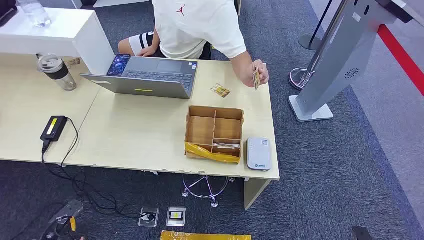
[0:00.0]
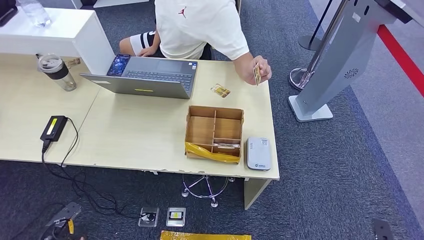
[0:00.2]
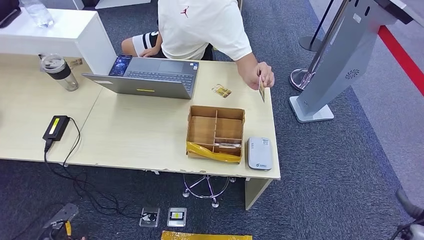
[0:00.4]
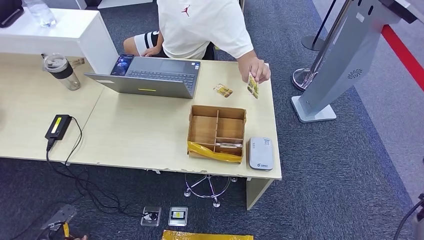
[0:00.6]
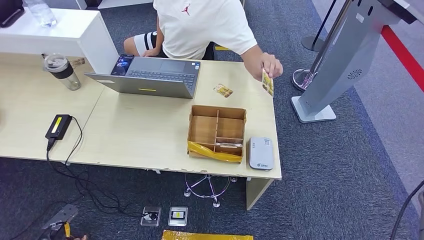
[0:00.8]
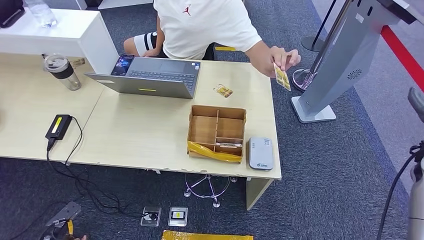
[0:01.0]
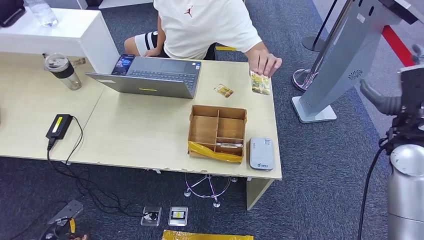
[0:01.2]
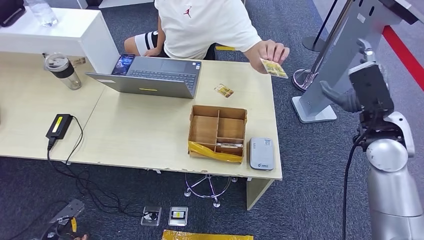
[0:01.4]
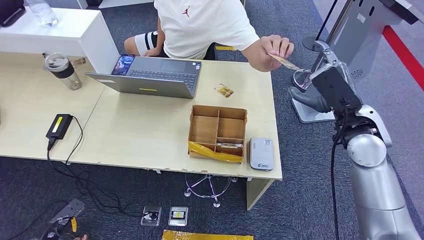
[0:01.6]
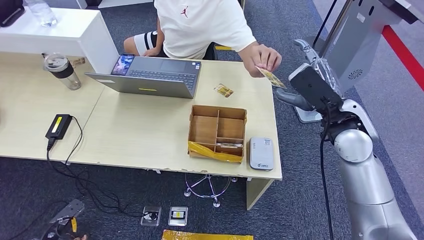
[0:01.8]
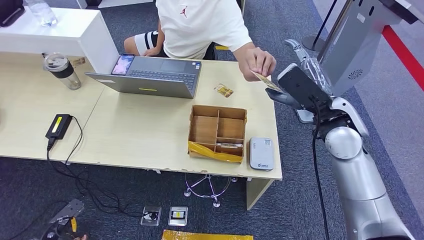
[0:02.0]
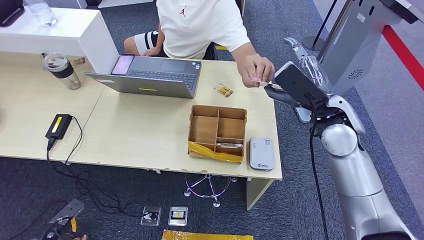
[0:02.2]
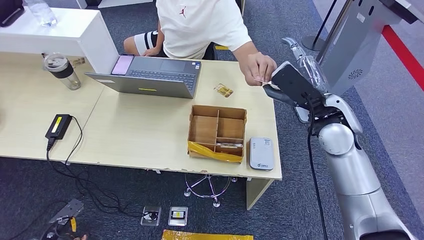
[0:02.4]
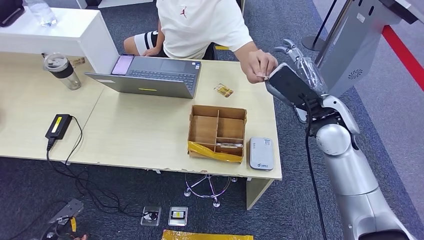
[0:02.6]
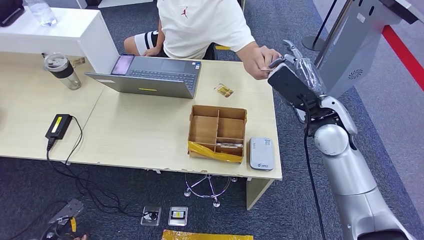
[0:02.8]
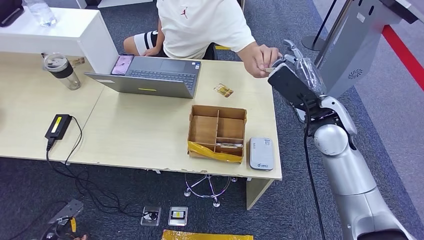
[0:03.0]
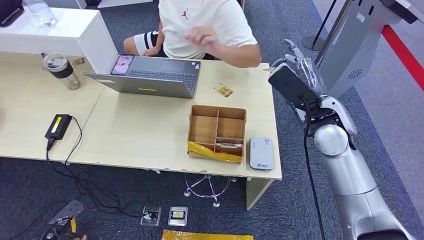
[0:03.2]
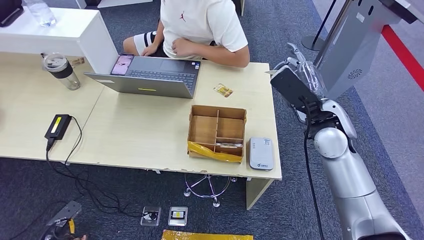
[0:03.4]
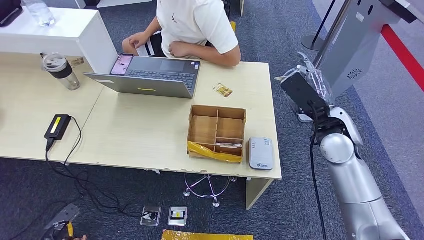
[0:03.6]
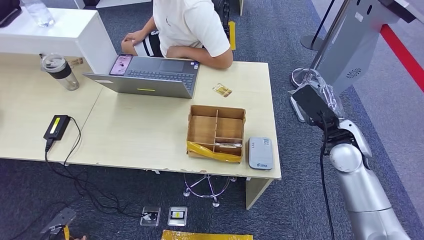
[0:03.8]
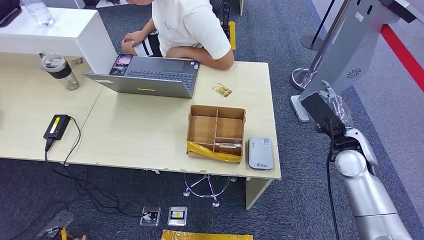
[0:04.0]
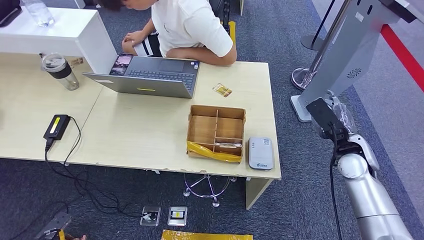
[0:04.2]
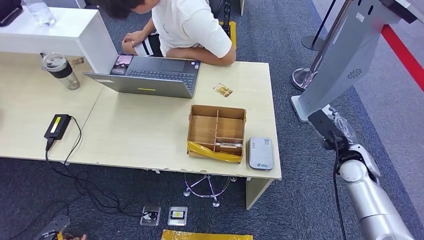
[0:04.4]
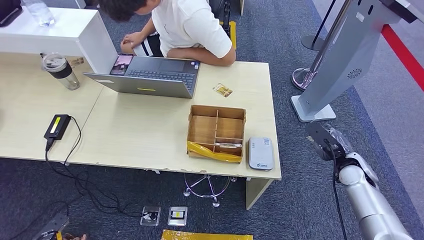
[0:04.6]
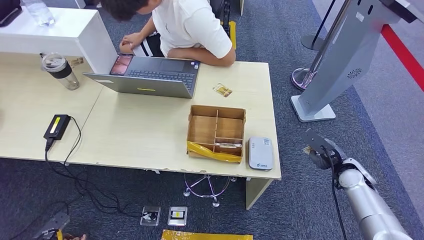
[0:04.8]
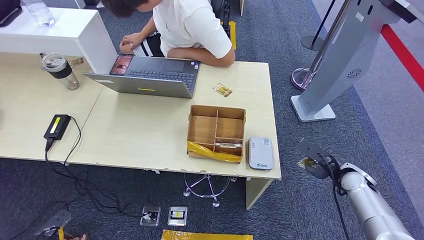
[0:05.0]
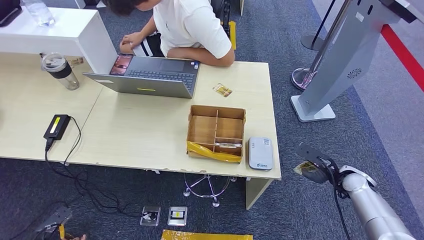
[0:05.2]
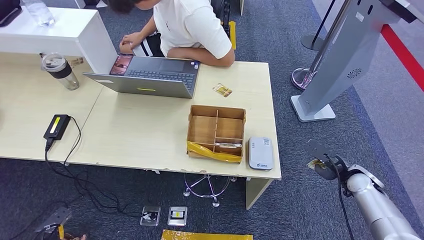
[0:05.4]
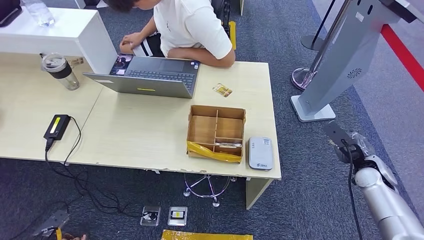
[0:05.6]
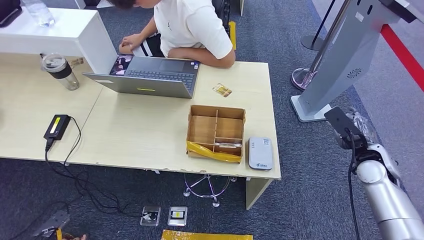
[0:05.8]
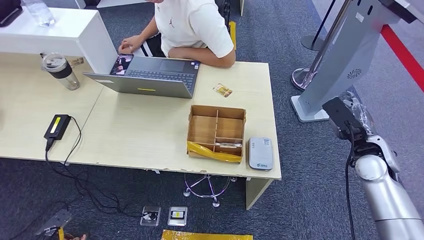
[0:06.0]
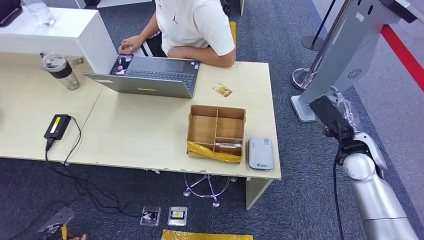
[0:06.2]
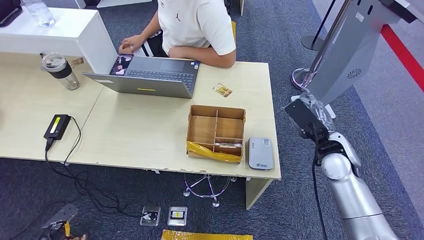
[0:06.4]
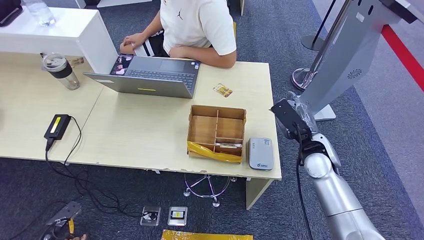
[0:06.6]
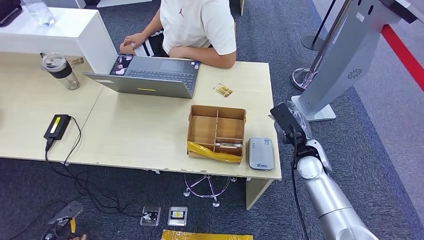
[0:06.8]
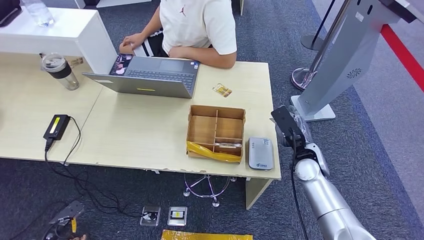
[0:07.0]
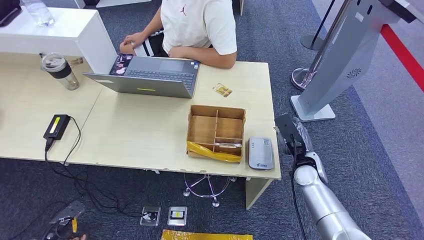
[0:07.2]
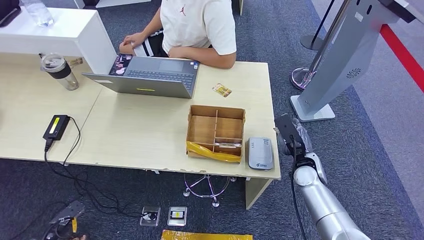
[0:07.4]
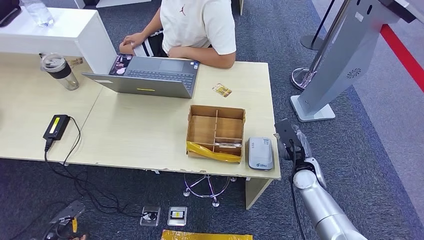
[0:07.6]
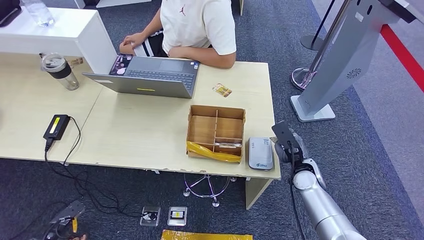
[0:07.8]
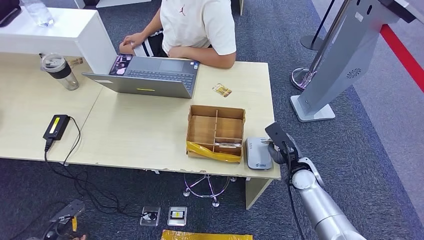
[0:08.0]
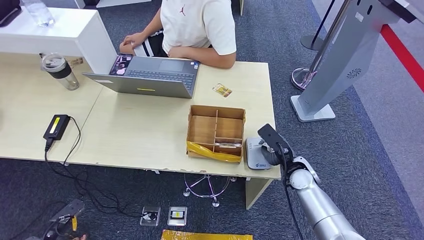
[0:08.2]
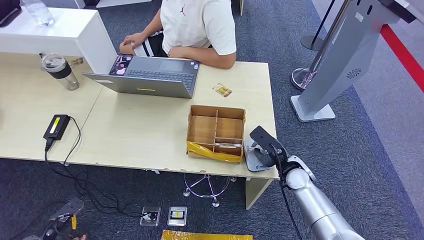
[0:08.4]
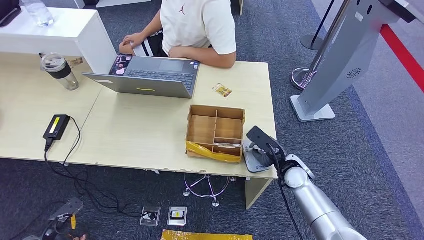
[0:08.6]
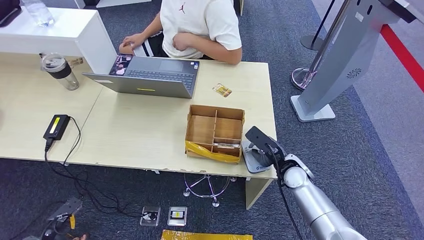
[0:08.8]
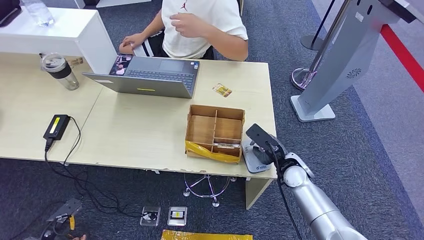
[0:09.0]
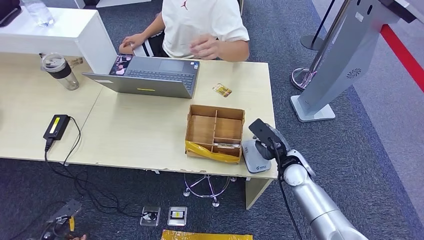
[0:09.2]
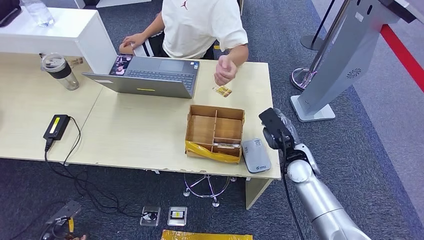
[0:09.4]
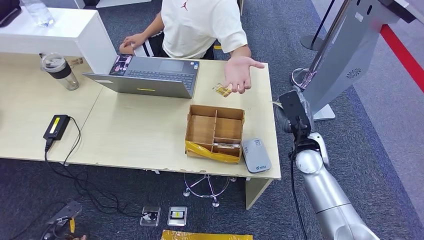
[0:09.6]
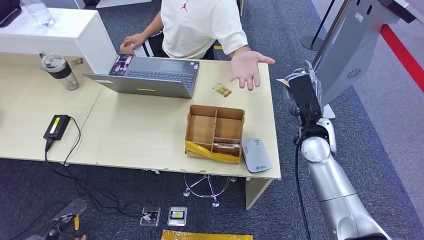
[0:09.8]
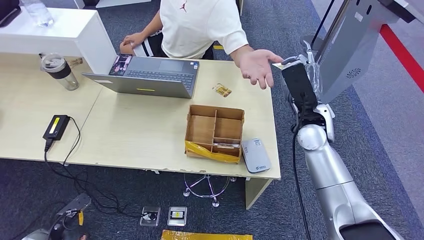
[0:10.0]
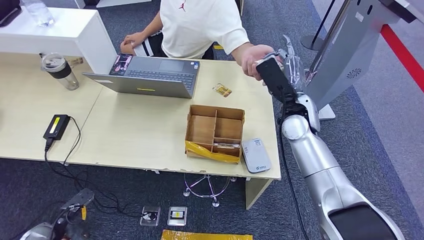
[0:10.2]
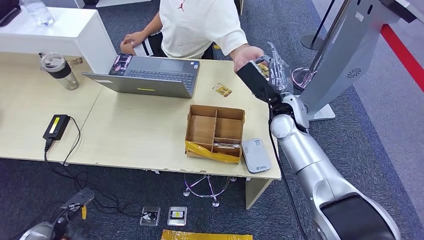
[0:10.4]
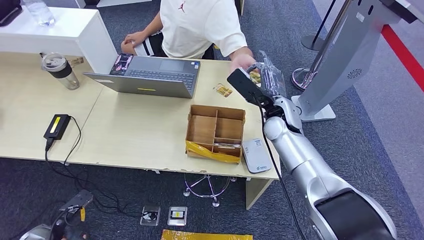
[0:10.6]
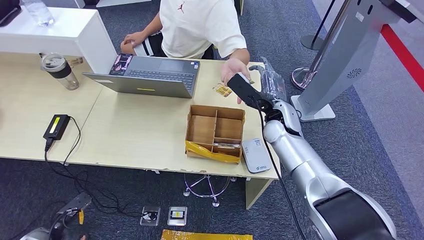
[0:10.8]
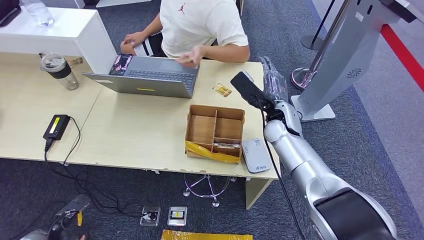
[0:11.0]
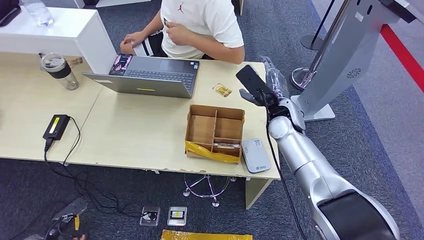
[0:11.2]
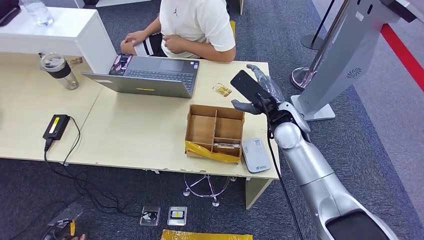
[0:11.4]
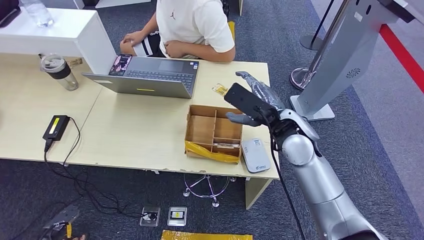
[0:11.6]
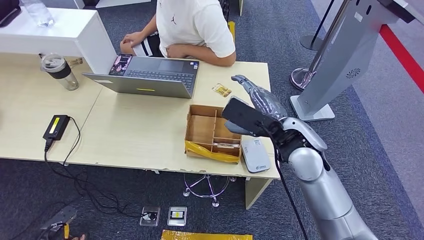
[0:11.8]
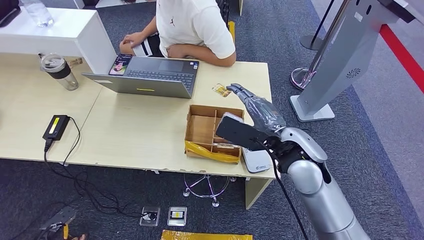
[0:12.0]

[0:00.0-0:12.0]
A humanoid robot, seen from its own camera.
Step, 0:00.0 to 0:03.6: Take the ID card from the person's hand.
Step, 0:05.0 to 0:09.2: Place the ID card on the card reader.
Step, 0:09.8 to 0:11.4: Hand the ID card to the person.
0:01.6 to 0:03.0: The right hand moves to the left, some 5 cm.
0:03.0 to 0:04.4: The left hand changes place by some 5 cm, while the right hand goes roughly 20 cm downward and to the right.
0:06.0 to 0:07.6: The right hand travels to the left and downward by about 15 cm.
0:09.0 to 0:10.4: The right hand goes roughly 15 cm upward and forward.
0:10.4 to 0:12.0: The left hand moves backward, roughly 5 cm, while the right hand goes approximately 10 cm backward.

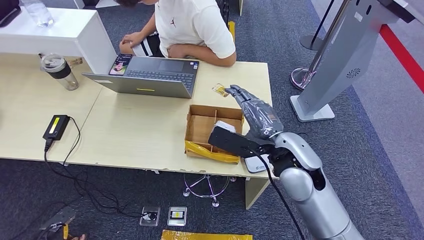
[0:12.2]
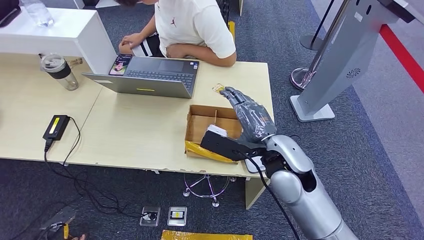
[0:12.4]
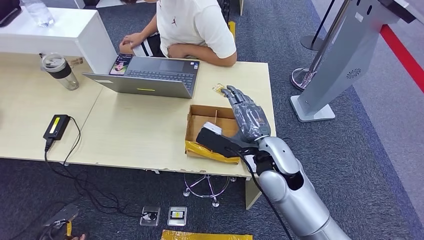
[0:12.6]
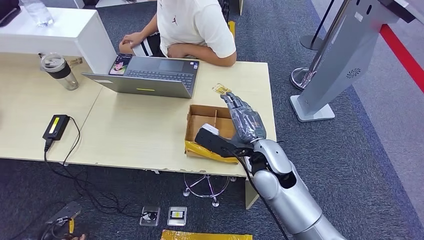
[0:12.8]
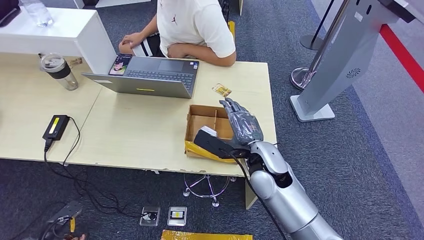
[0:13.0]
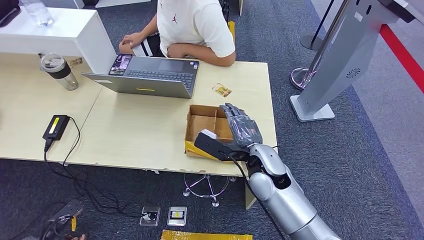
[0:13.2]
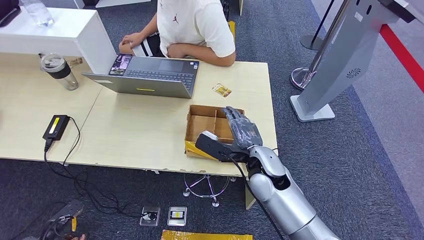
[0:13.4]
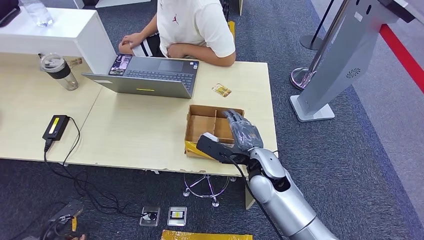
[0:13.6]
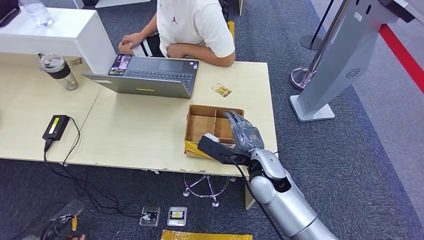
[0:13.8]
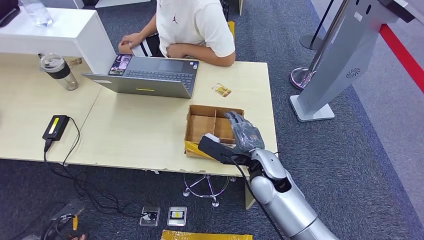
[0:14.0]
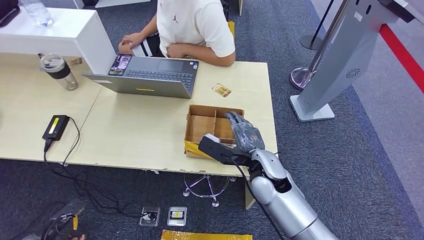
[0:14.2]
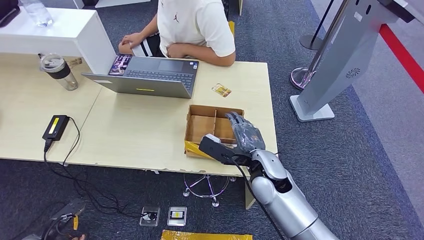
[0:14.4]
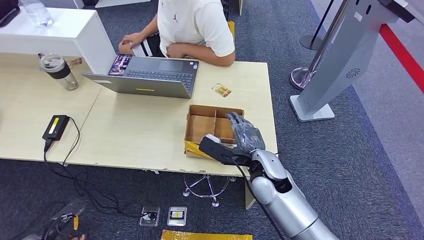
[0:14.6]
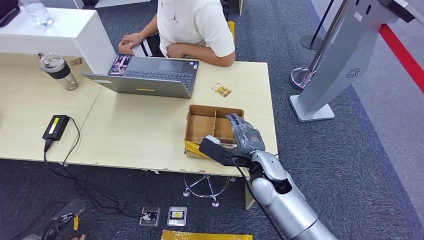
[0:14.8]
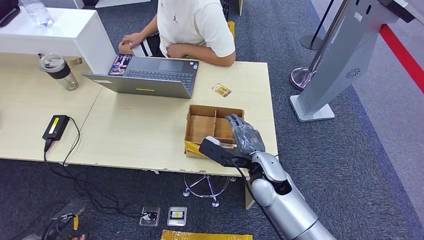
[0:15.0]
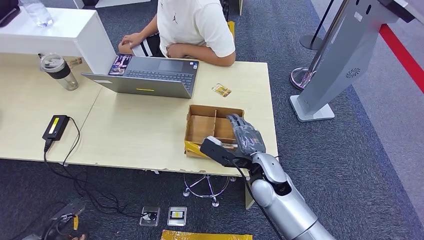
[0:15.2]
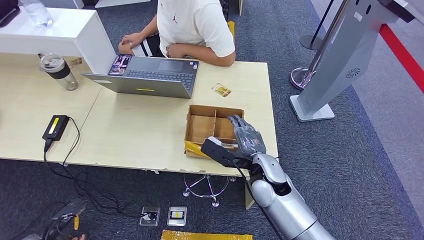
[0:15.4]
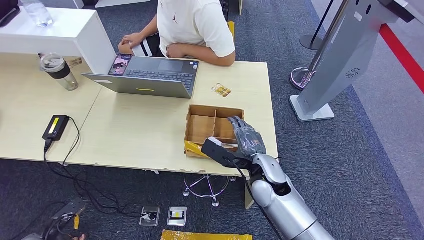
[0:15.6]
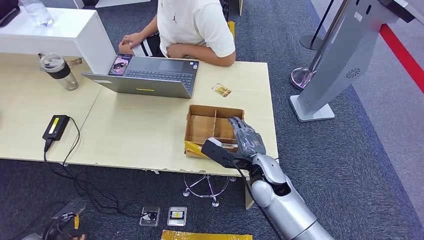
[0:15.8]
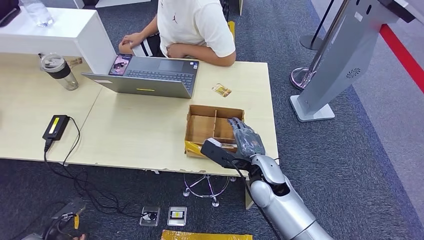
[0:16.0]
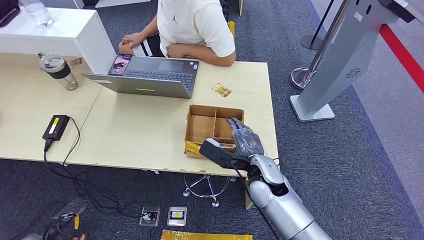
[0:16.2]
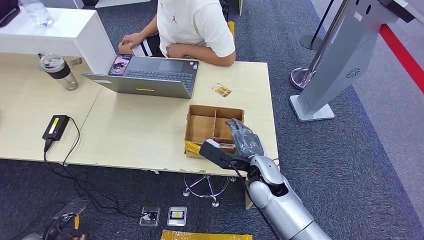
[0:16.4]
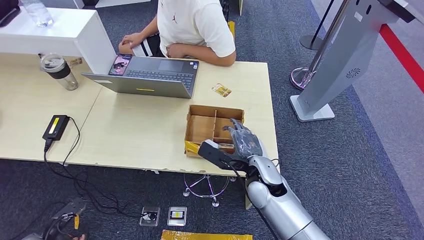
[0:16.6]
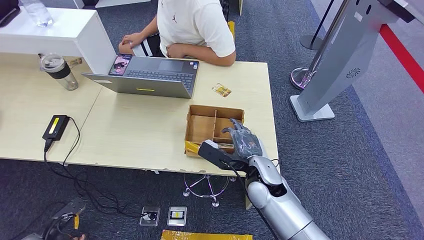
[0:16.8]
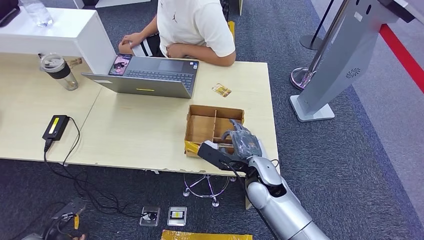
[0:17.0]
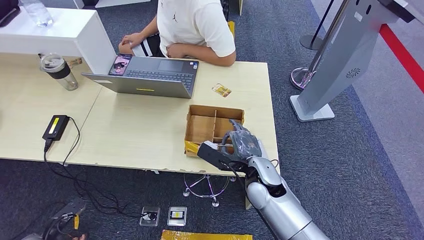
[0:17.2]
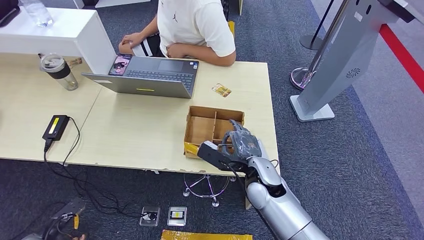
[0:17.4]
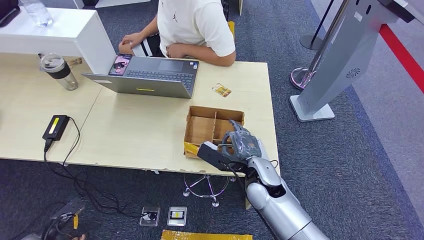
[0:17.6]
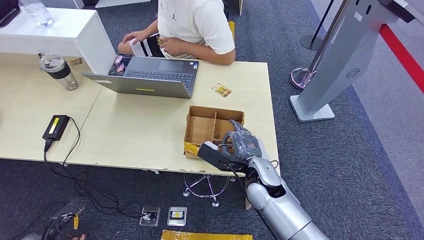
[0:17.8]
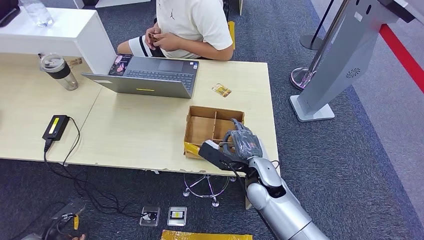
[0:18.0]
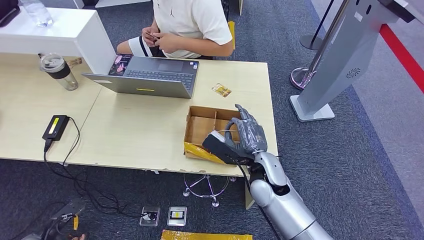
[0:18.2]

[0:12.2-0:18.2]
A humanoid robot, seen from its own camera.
0:12.2 to 0:13.8: The right hand goes roughly 10 cm downward.
0:13.8 to 0:15.2: Both hands stay put.
0:15.2 to 0:18.2: The hands stay close to where they were, moving slightly.
